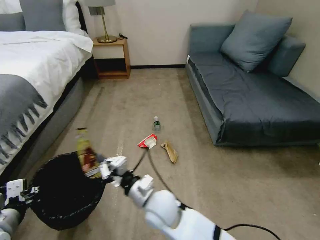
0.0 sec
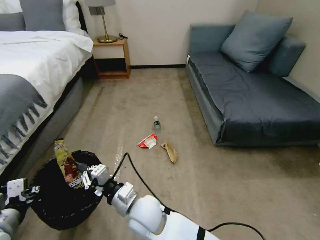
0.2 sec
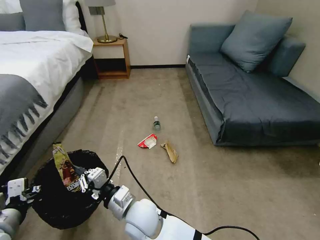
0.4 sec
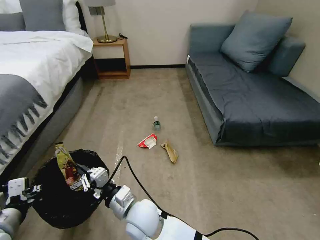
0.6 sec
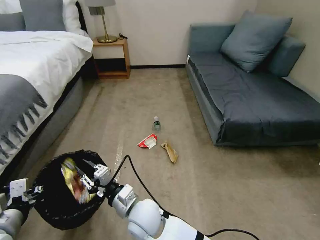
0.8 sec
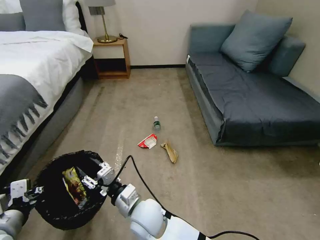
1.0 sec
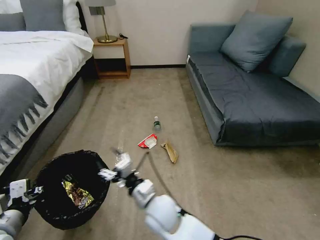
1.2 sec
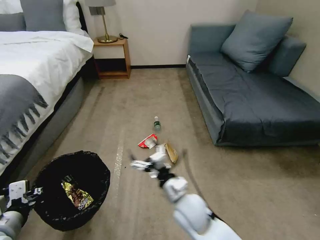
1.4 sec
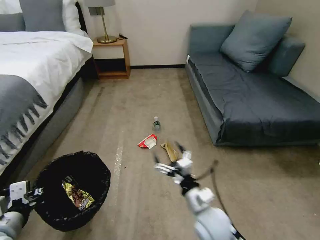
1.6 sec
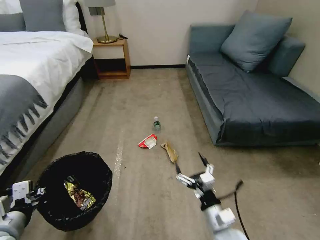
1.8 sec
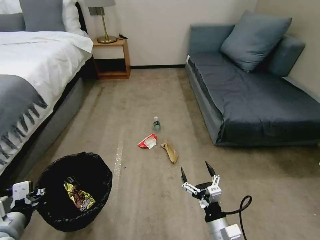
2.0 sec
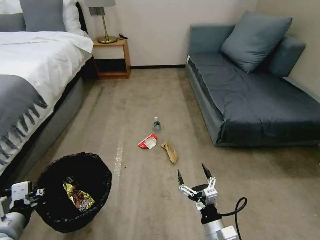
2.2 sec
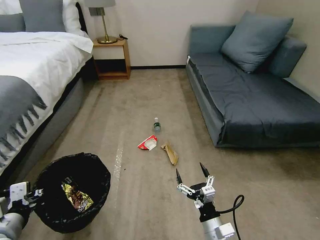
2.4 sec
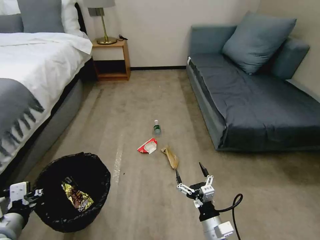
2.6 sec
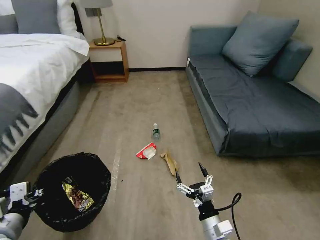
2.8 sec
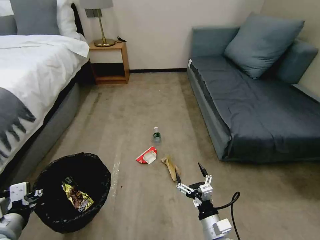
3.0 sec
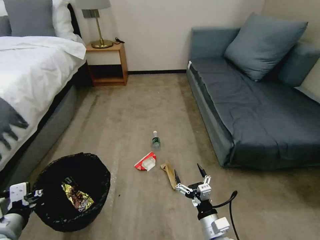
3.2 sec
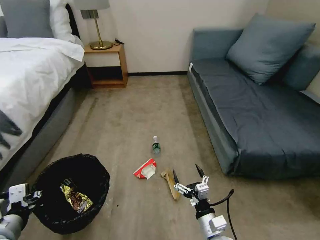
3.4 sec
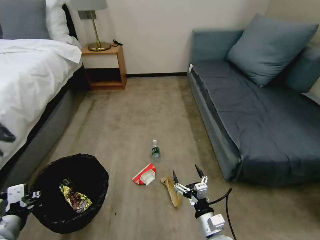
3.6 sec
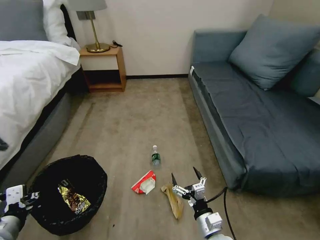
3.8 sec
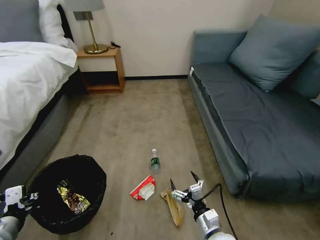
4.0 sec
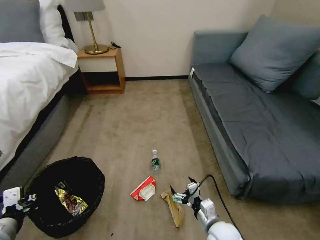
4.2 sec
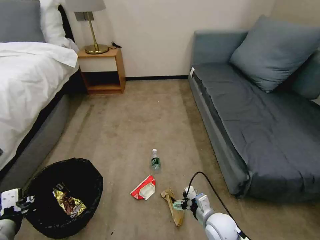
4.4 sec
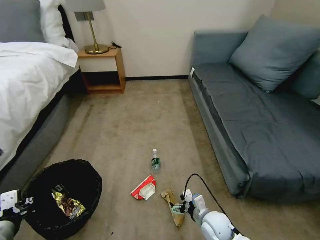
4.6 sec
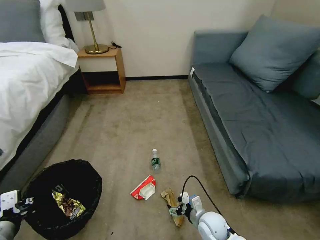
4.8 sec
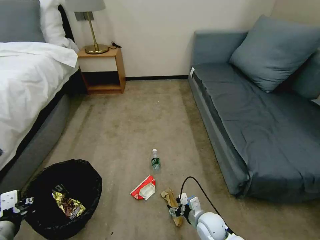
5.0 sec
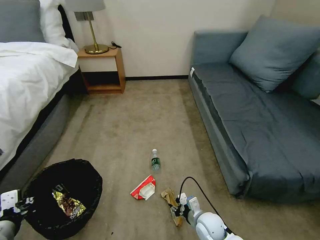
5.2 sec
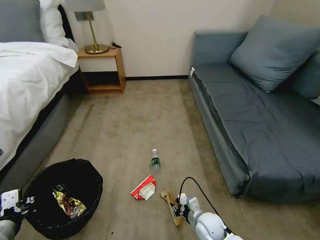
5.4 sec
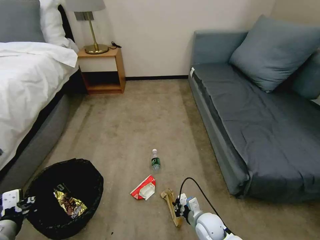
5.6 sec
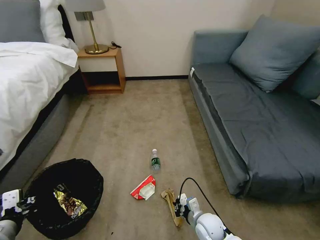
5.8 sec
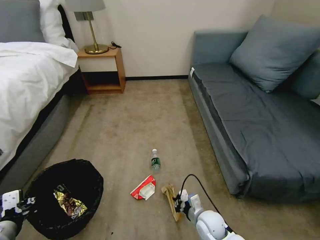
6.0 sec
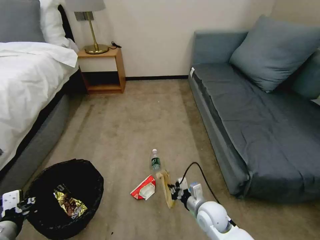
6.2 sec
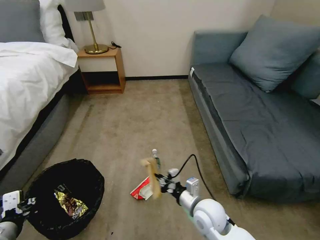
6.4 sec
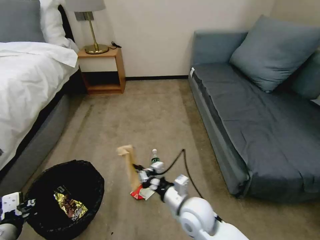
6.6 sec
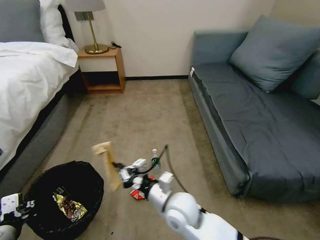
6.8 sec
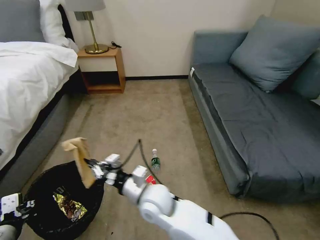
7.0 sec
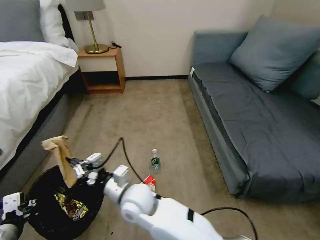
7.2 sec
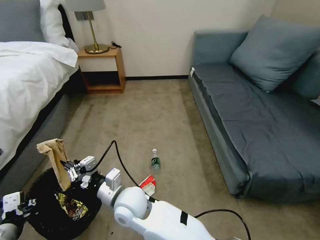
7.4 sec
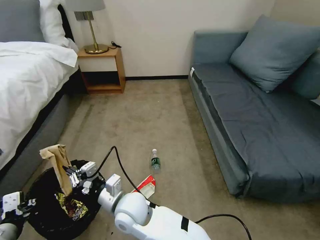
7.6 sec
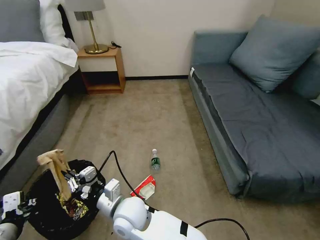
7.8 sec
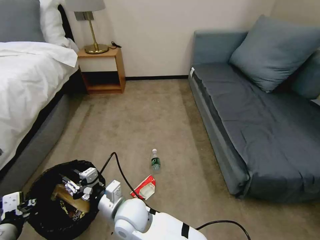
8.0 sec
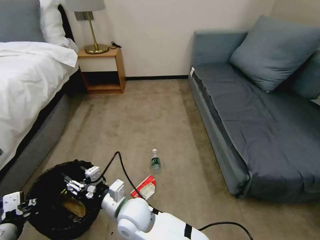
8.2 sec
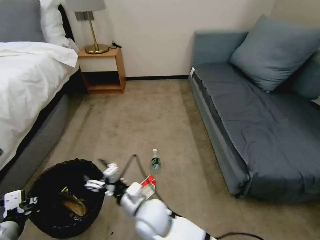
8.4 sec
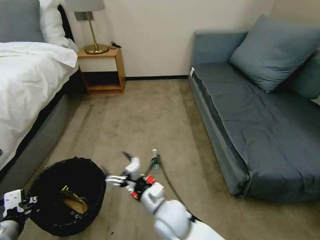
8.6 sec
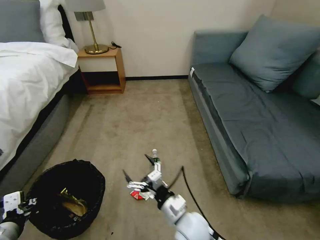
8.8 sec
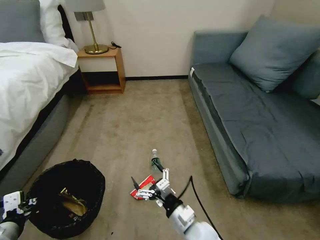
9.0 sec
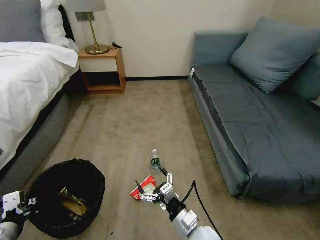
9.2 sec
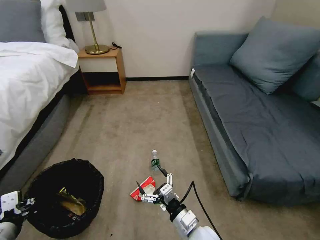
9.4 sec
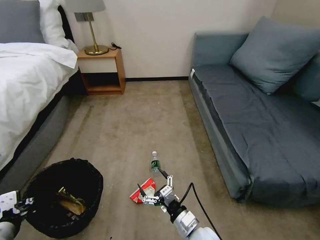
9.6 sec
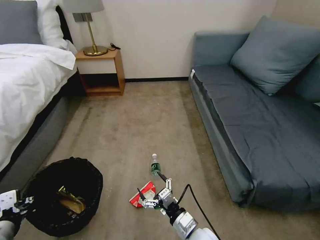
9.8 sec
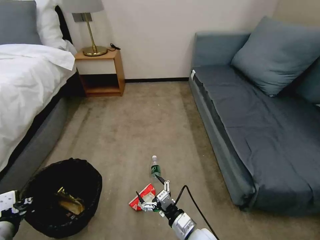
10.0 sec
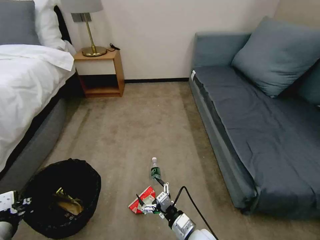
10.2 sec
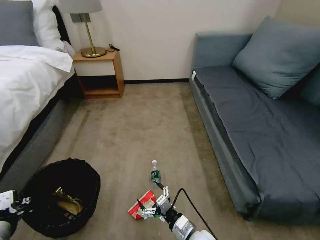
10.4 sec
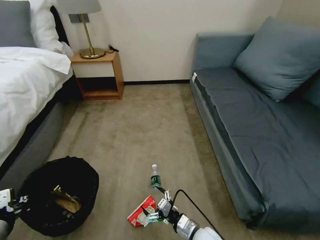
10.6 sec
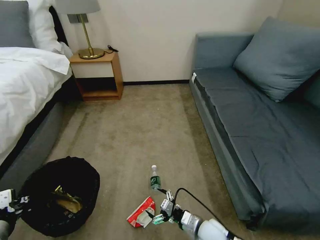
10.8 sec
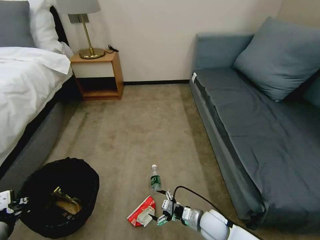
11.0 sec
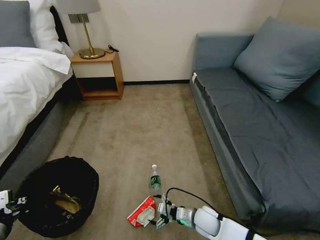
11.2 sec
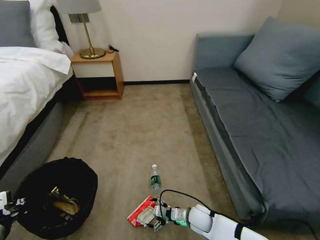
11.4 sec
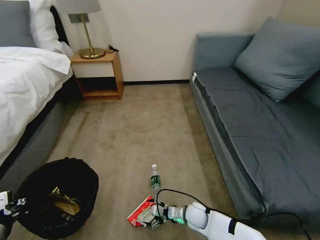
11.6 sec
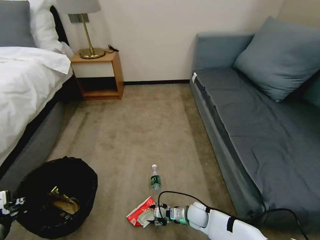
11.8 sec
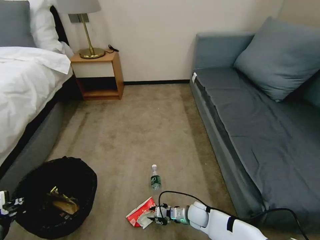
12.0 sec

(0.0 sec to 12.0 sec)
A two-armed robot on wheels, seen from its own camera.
Task of the whole recording: Pick up the trash bin, then pick up the garbage on the floor and place it into the trash bin.
0.0 sec - 1.6 sec: The right gripper travels to the right by about 15 cm, and opens.
1.6 sec - 3.0 sec: The right gripper is displaced downward and backward by about 10 cm.
3.0 sec - 4.4 sec: The right gripper shifts about 5 cm forward.
4.4 sec - 6.0 sec: The right gripper shifts by about 5 cm, and closes.
6.0 sec - 7.6 sec: The right gripper shifts roughly 30 cm to the left and upward.
7.6 sec - 9.0 sec: The right gripper goes roughly 20 cm to the right, and opens.
9.0 sec - 10.4 sec: The right gripper goes roughly 5 cm downward.
10.4 sec - 12.0 sec: The right gripper moves forward and downward, some 15 cm, and closes its fingers.

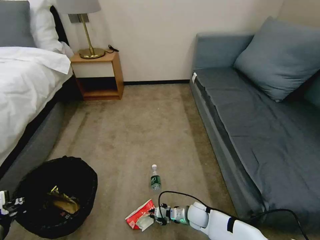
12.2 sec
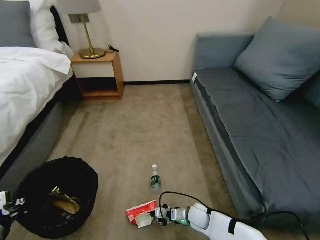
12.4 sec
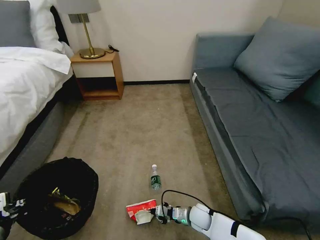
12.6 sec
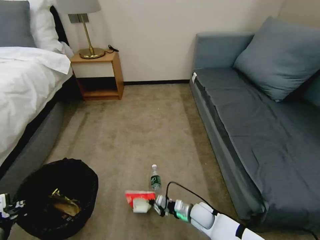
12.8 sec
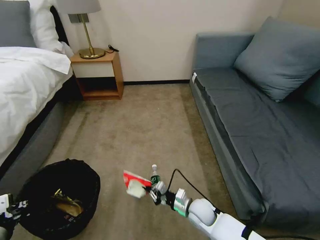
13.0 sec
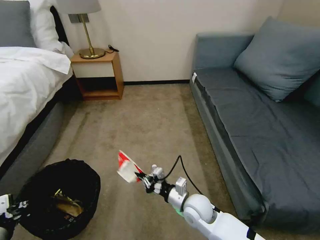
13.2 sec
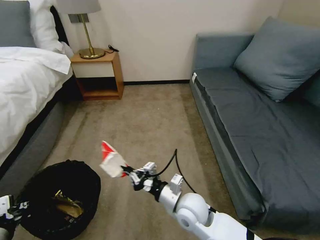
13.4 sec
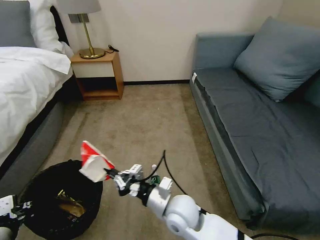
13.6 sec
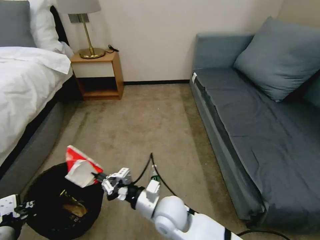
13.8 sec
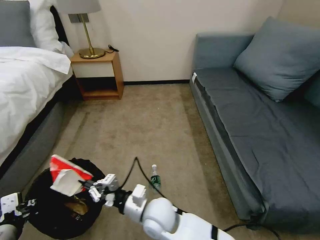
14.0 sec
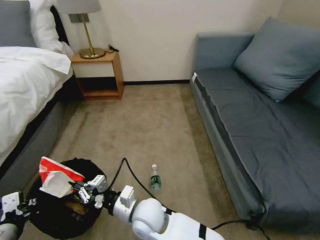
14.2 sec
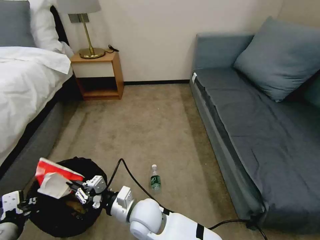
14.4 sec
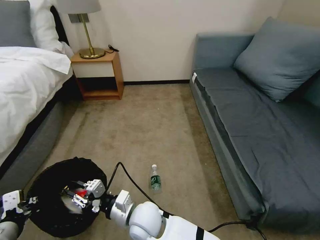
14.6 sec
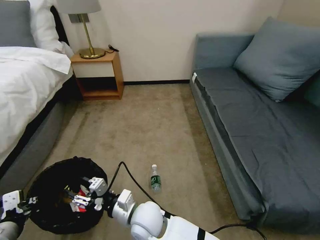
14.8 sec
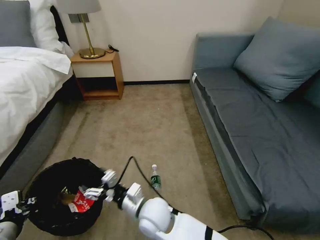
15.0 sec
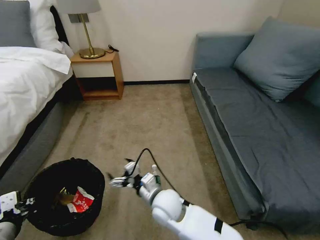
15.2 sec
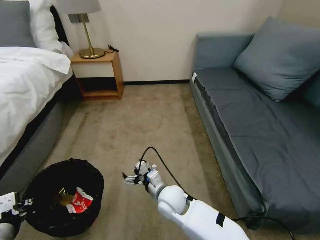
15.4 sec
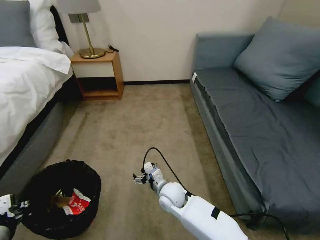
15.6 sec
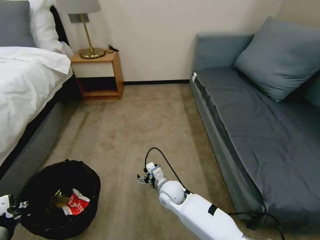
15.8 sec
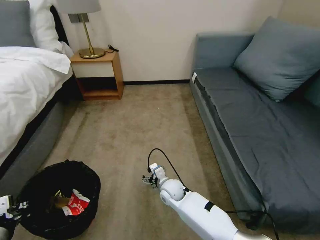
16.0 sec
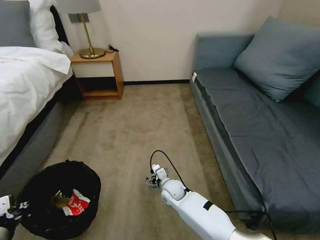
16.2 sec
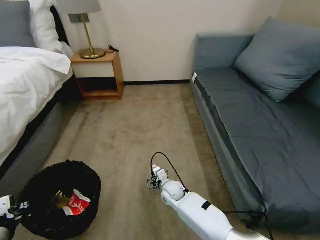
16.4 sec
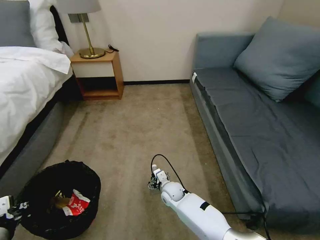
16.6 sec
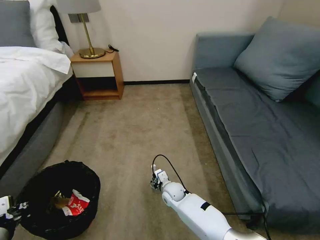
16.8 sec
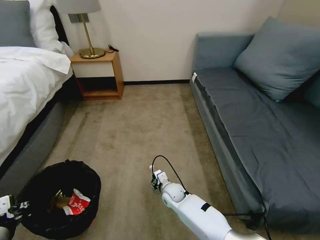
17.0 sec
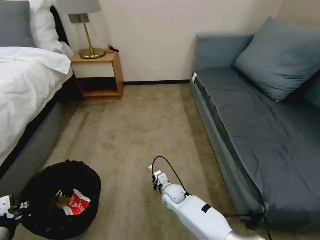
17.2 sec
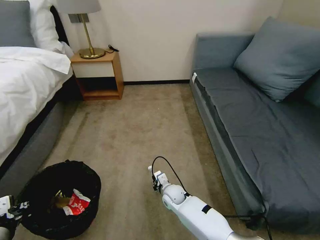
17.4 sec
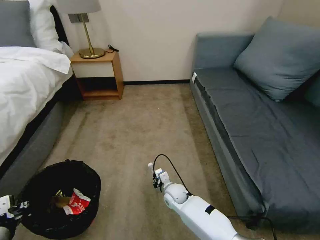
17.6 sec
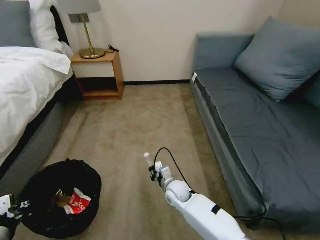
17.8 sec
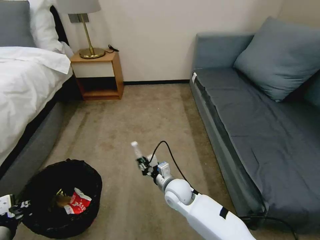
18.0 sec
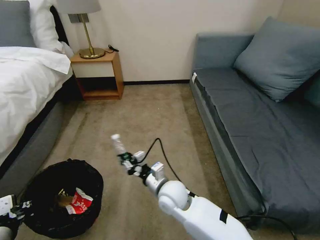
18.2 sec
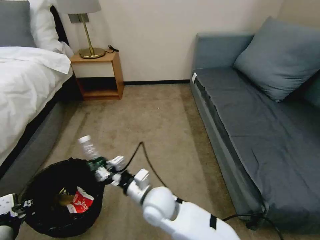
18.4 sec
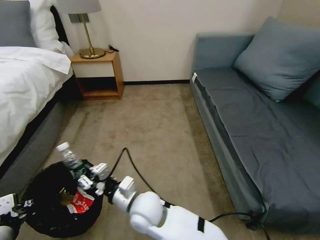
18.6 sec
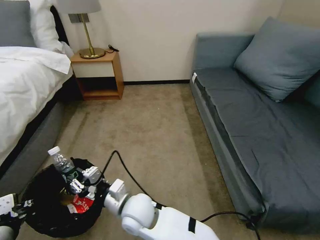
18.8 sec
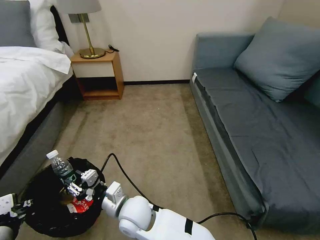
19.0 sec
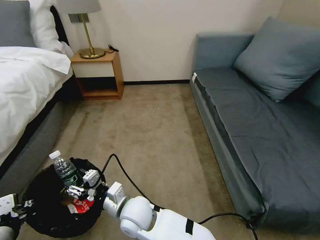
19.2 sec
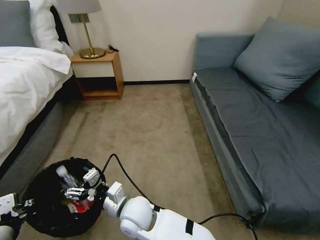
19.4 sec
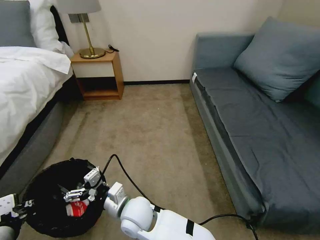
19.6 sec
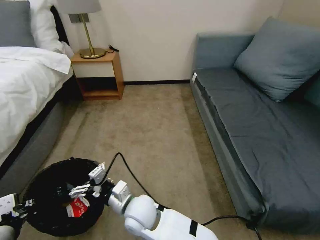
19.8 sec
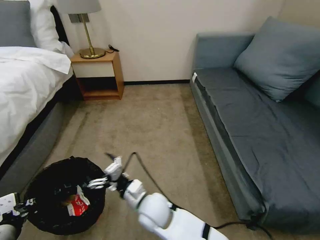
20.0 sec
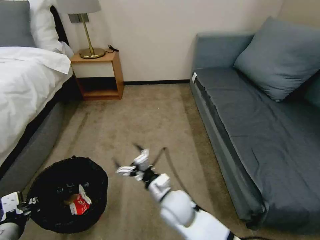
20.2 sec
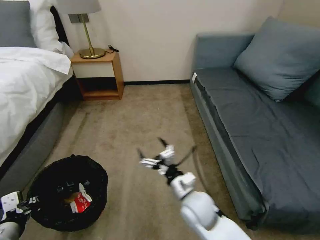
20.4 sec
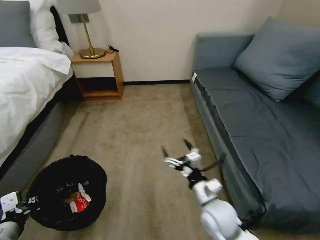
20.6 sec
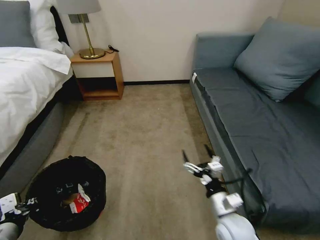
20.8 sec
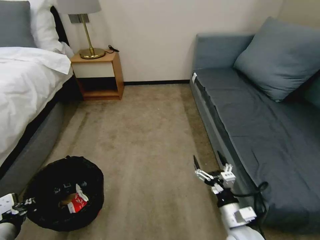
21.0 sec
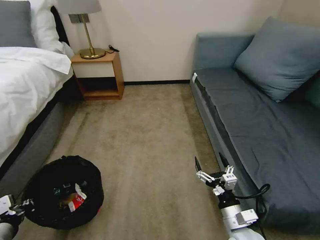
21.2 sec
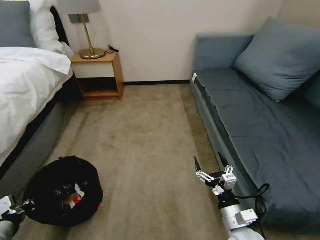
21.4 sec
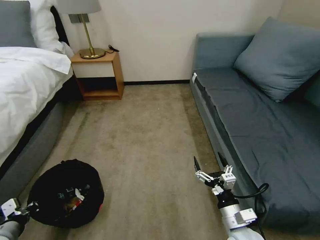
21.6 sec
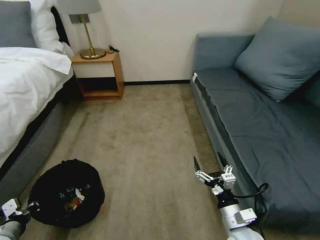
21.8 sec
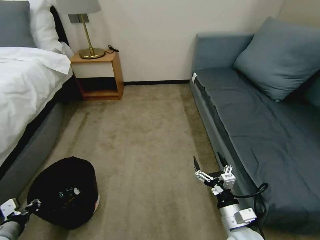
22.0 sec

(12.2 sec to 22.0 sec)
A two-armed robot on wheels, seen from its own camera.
Task of the whole recording: Pick up the trash bin, then pick up the garbage on the floor and place it into the trash bin.
12.2 sec - 13.6 sec: The right gripper moves upward and to the left, approximately 25 cm.
13.6 sec - 15.0 sec: The right gripper travels to the left by approximately 10 cm, and opens up.
15.0 sec - 16.4 sec: The right gripper moves downward, forward and to the right, about 20 cm.
16.4 sec - 17.8 sec: The right gripper ends up some 5 cm from where it was, and closes its fingers.
17.8 sec - 19.2 sec: The right gripper goes roughly 20 cm to the left, upward and backward.
19.2 sec - 20.6 sec: The right gripper goes some 25 cm to the right, and opens.
20.6 sec - 22.0 sec: The left gripper is displaced downward and to the left by some 10 cm. The right gripper travels to the right and backward by some 10 cm.
